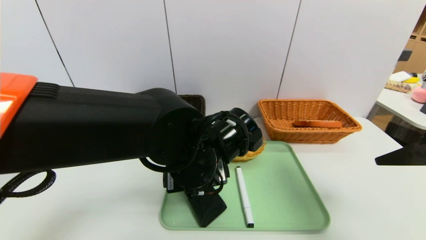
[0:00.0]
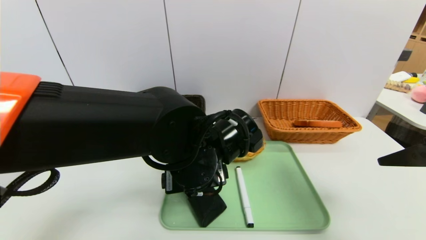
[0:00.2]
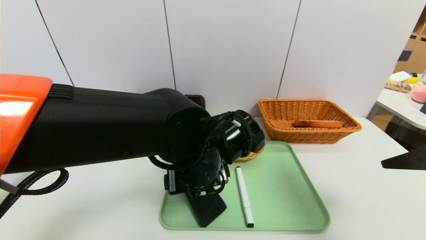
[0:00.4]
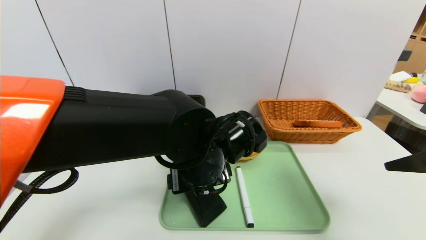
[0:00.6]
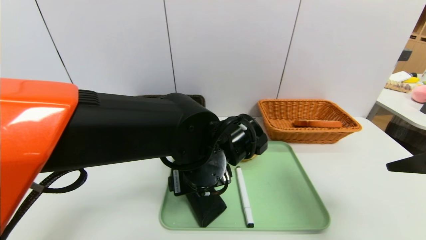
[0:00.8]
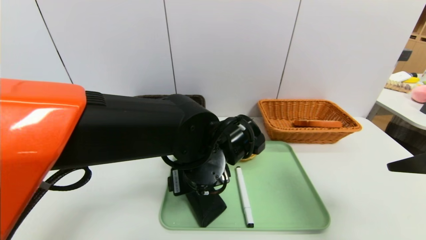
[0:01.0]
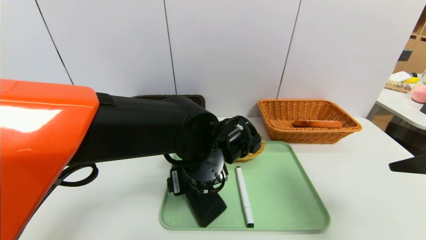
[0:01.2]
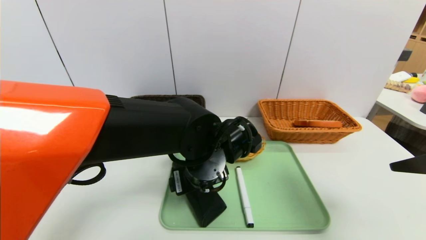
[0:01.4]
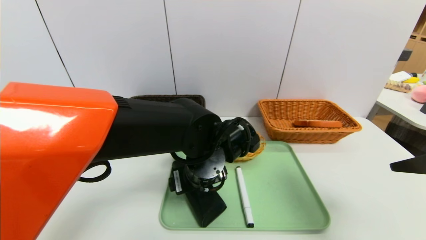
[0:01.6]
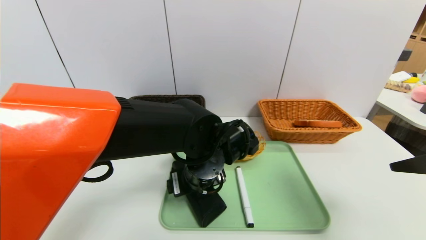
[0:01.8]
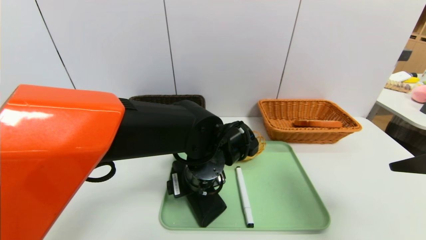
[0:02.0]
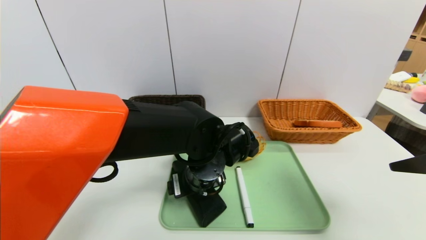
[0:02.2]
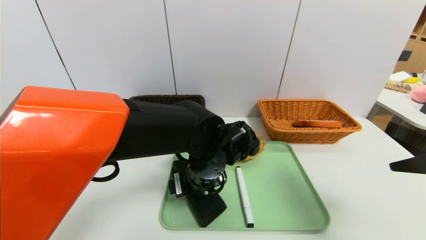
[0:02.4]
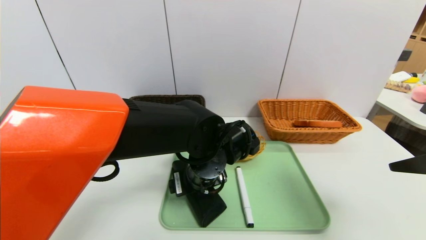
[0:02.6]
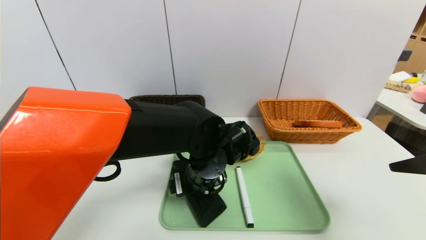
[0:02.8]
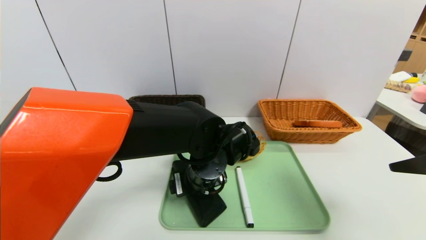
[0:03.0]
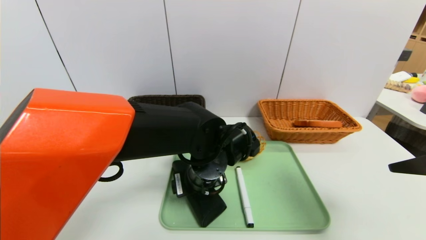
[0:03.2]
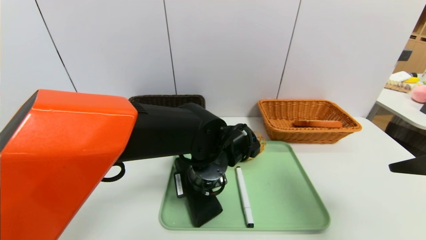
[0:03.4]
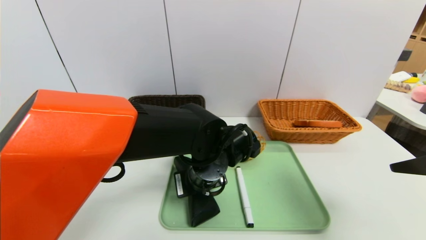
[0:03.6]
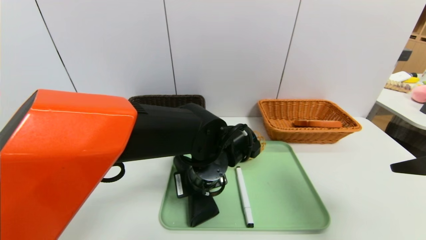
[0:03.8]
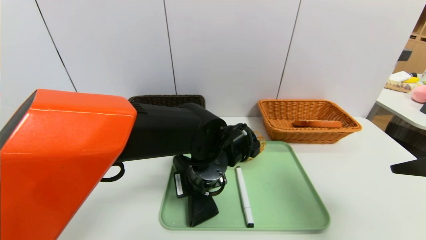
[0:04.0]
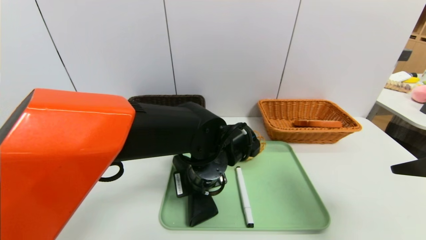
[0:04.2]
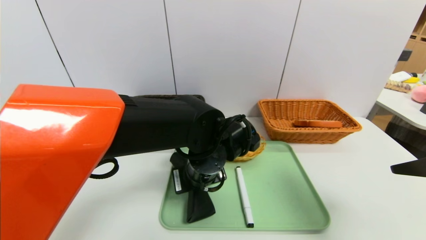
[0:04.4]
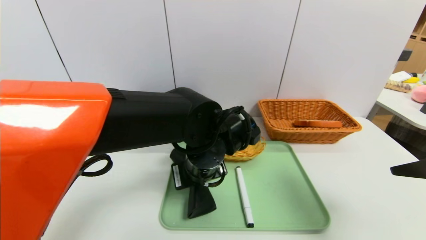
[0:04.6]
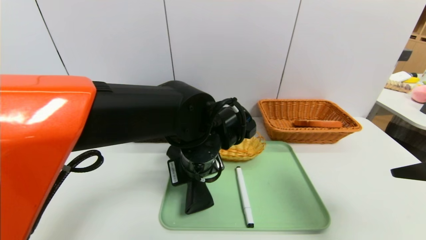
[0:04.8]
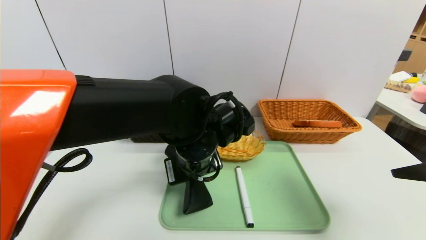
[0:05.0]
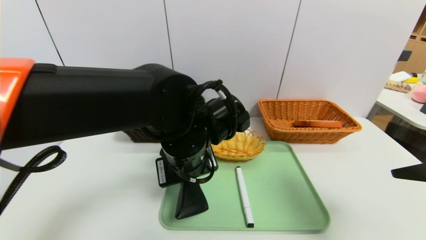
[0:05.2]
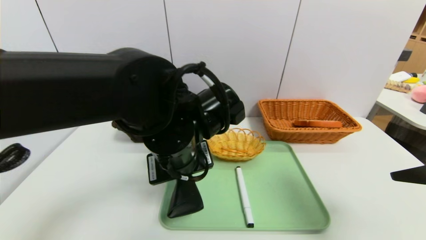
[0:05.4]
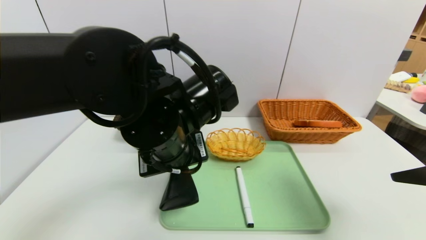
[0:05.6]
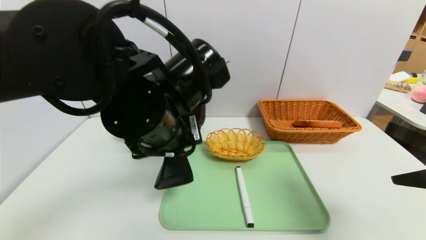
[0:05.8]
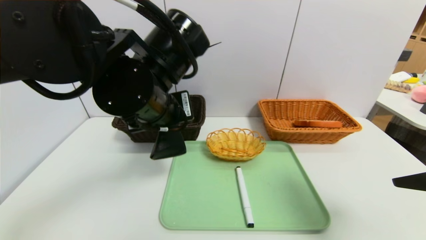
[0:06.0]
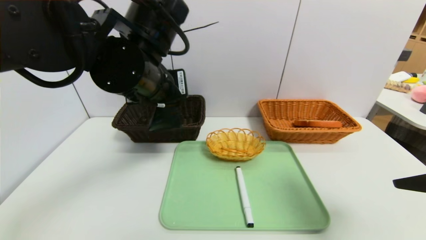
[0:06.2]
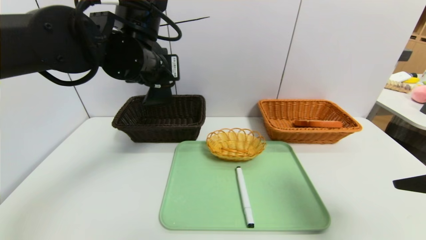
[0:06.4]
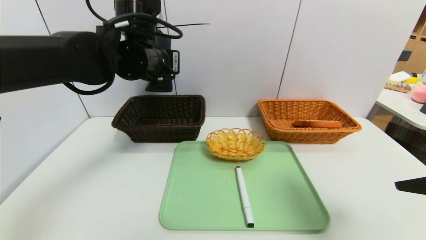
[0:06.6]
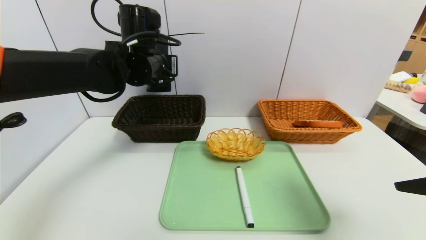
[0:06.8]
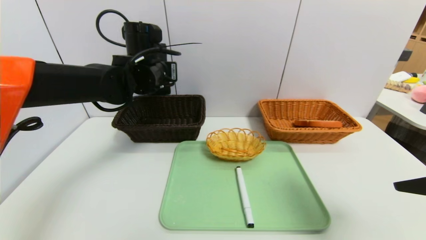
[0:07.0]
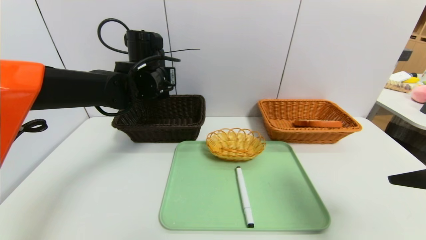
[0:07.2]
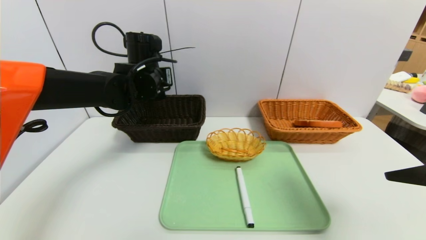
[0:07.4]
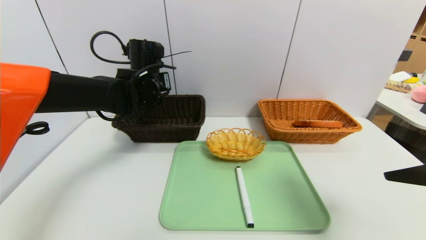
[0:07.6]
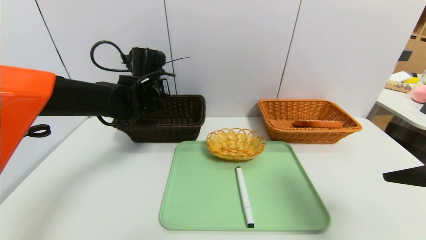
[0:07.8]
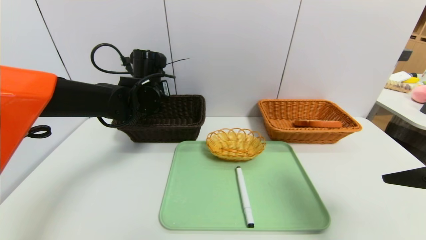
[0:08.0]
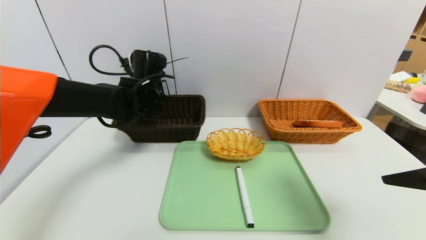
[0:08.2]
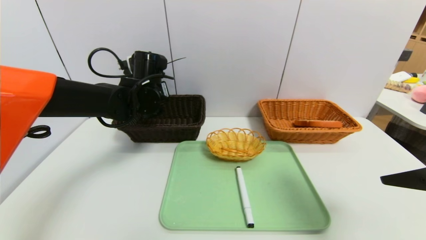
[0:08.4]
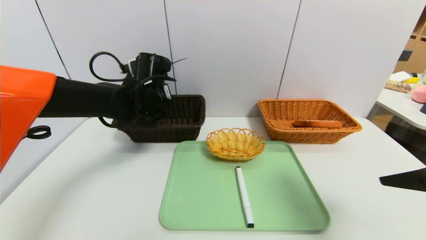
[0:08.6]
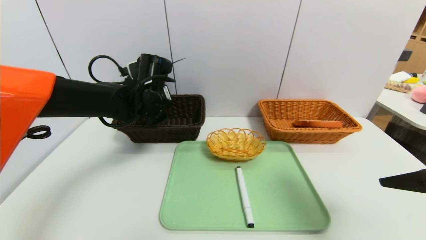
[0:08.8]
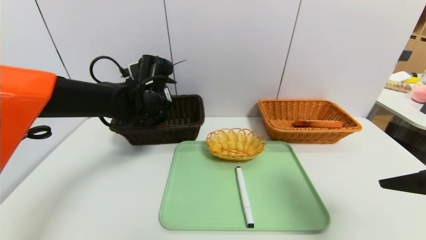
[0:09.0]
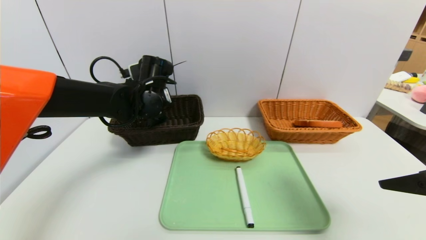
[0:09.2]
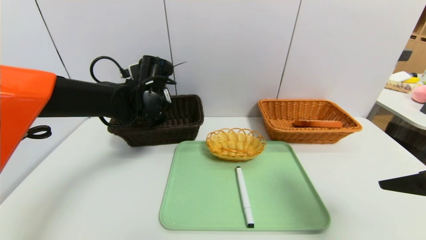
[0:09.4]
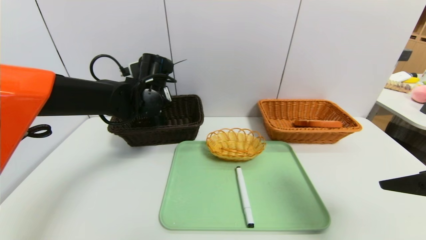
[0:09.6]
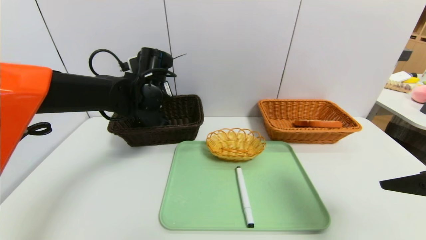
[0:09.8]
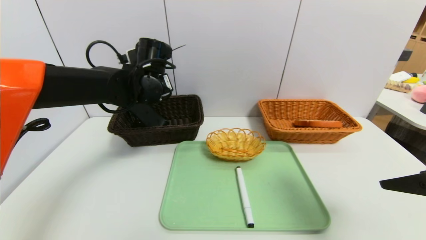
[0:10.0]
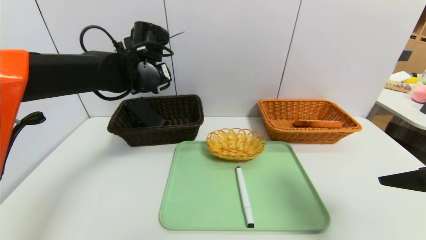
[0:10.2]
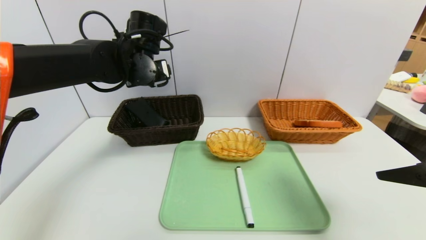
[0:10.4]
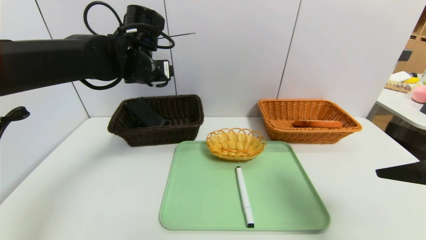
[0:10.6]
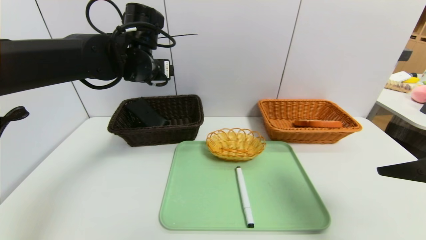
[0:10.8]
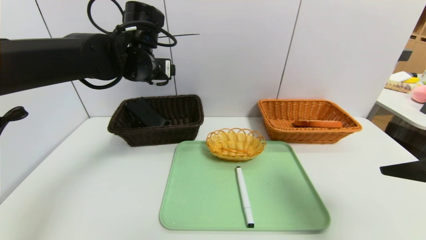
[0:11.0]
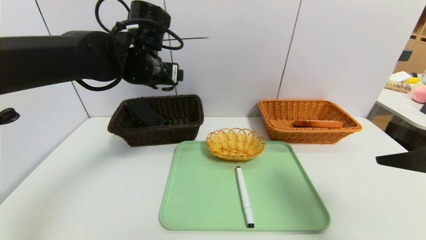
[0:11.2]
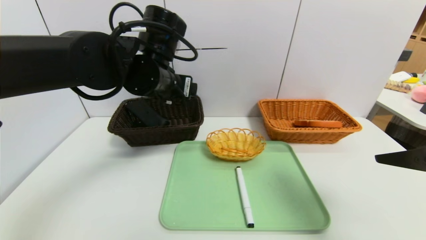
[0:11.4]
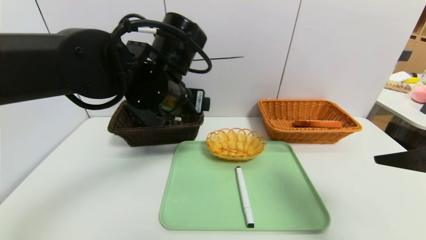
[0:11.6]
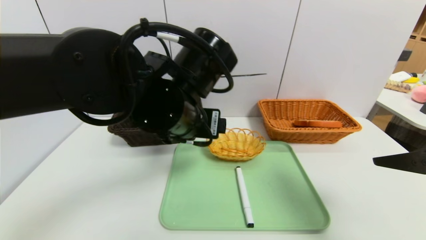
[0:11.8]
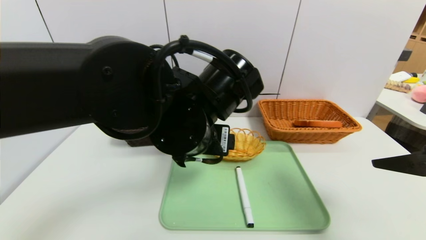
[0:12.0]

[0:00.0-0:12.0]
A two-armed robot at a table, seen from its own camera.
Task of the whole recording: place the food in the right basket with the right gripper, and place the non food items in the left basket with the left gripper.
Step, 0:00.0 to 0:10.6: Grasp the glasses case and put it in the left basket.
0:00.0 to 0:01.6: The grippers make only small movements.
0:01.6 to 0:03.0: The two grippers keep their place.
0:03.0 to 0:04.4: The left gripper closes its fingers.
0:04.4 to 0:06.0: The left gripper goes approximately 15 cm upward and to the left.
0:06.0 to 0:07.6: The left gripper moves forward, approximately 15 cm.
0:07.6 to 0:09.0: The grippers stay close to where they were, moving slightly.
0:09.0 to 0:10.4: The left gripper moves upward, some 5 cm, and opens up.
0:10.4 to 0:12.0: The left gripper travels backward and to the right by roughly 20 cm.

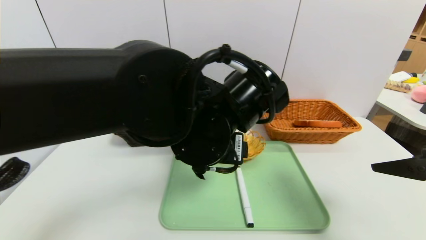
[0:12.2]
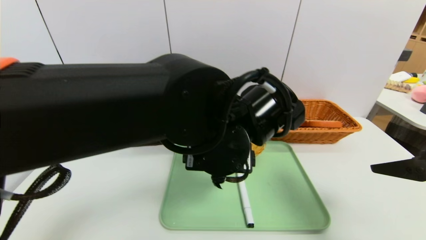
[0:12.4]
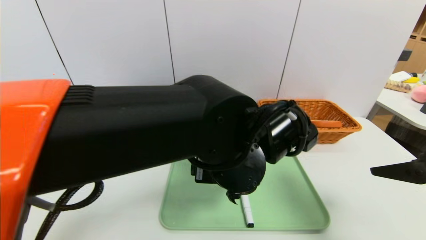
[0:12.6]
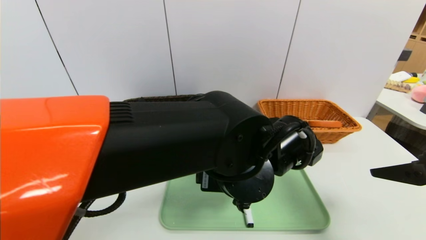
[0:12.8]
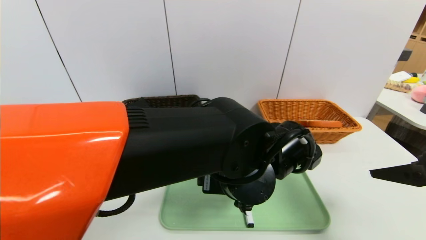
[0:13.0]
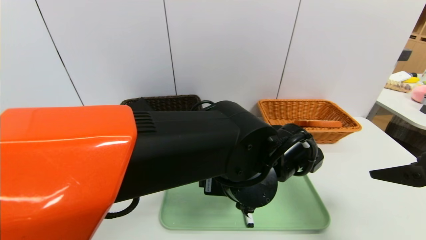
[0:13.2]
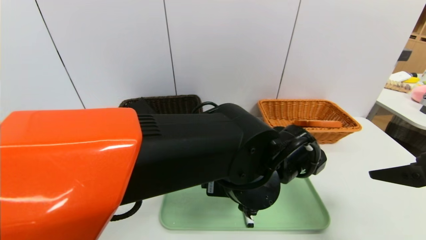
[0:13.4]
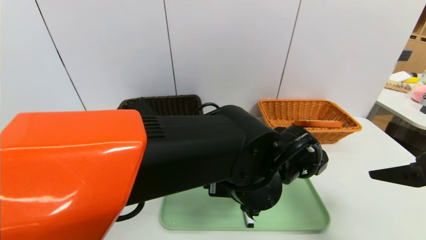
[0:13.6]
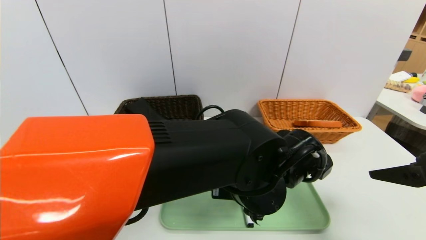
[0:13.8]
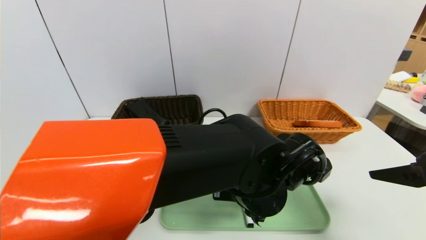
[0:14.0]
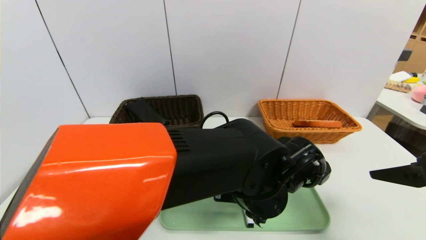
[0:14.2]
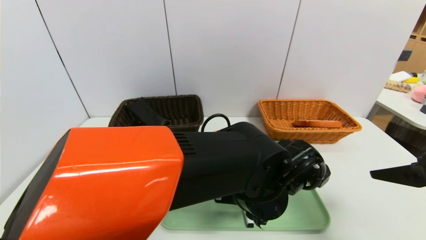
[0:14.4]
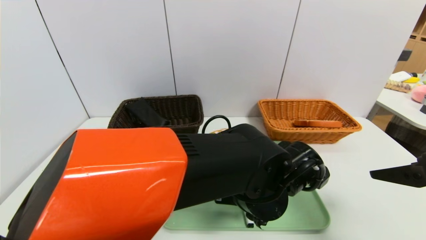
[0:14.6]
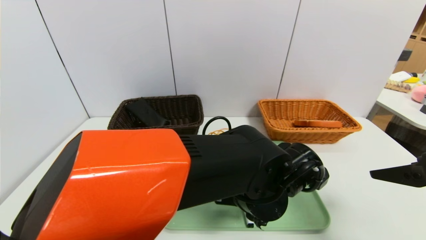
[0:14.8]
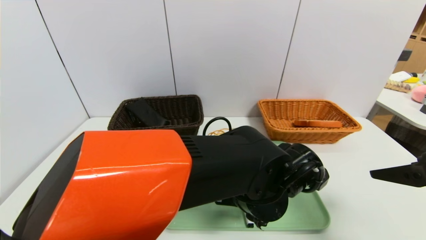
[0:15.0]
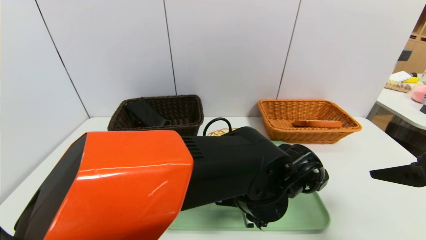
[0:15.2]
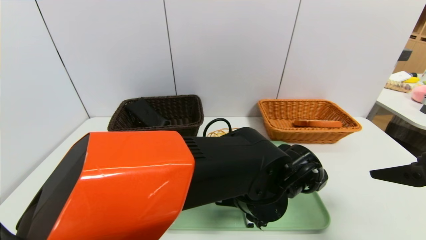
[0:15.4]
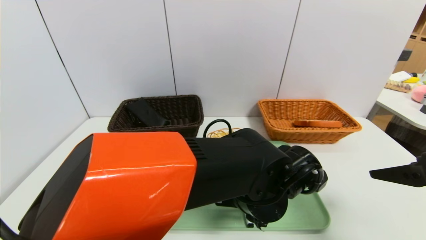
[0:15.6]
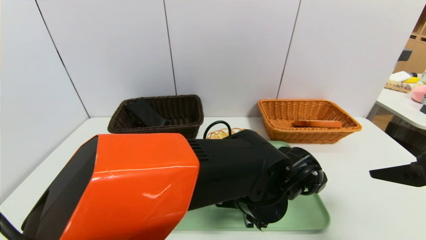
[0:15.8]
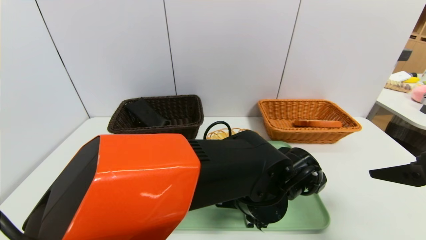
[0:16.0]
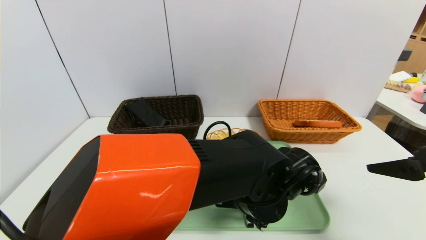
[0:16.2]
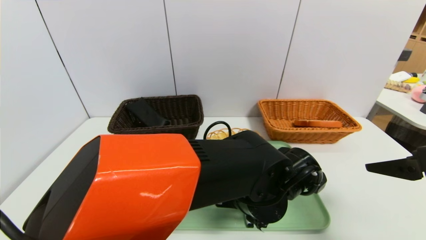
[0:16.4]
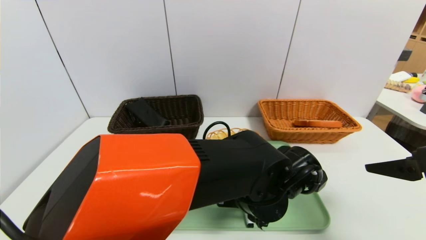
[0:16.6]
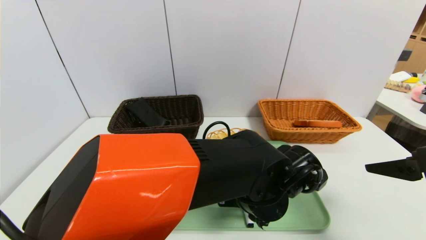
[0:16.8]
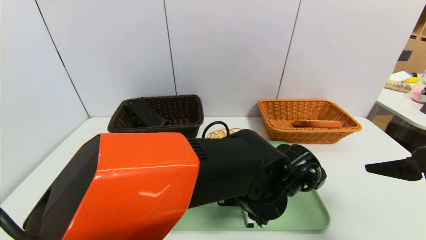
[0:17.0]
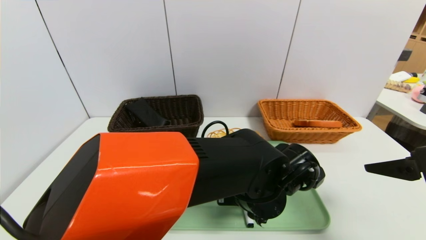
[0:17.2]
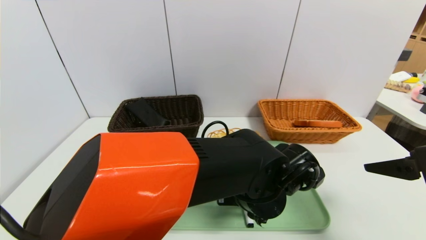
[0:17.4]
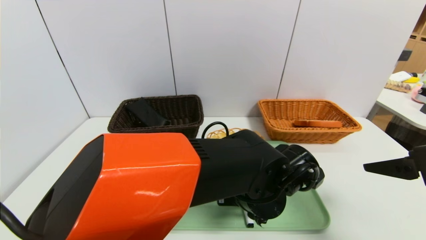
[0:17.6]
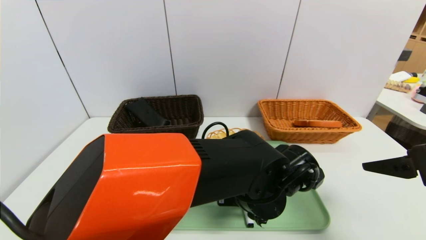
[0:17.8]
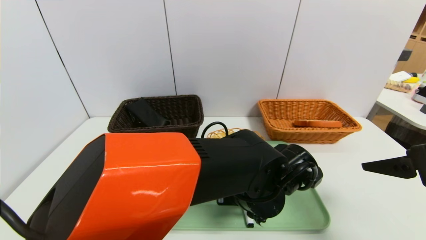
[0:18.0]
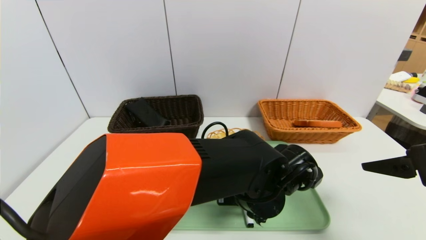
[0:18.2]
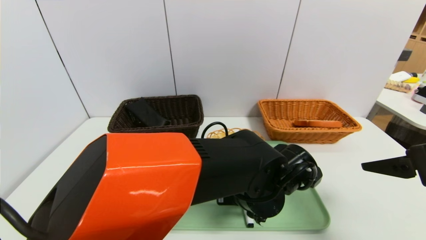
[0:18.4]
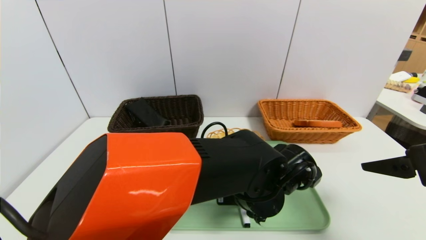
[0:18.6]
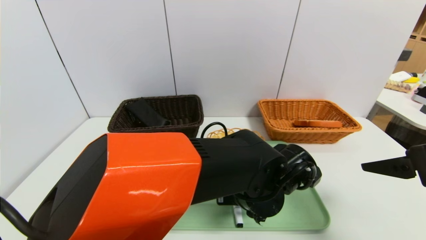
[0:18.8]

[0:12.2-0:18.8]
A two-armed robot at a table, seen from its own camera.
Task of the whole recording: place the food in the right basket with the right gripper, and place the non food items in the left basket with the left gripper.
0:12.2 to 0:13.8: The left gripper travels downward and to the right by about 10 cm.
0:15.4 to 0:17.2: Both grippers stay about where they are.
0:17.2 to 0:18.8: The left gripper closes.
